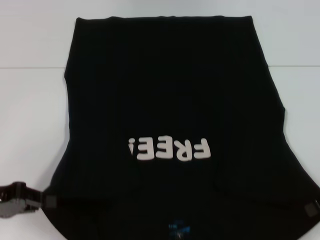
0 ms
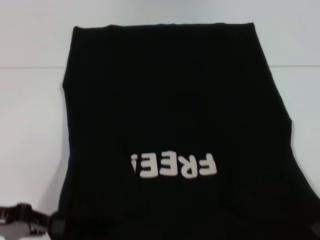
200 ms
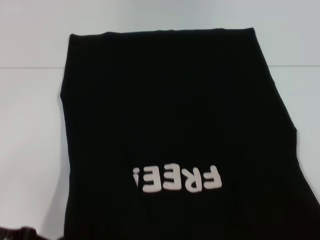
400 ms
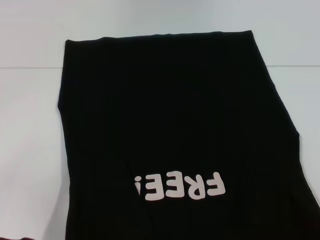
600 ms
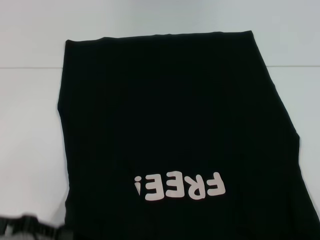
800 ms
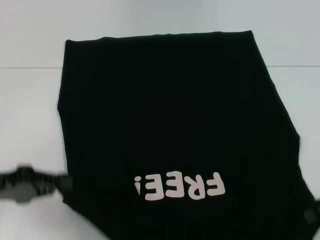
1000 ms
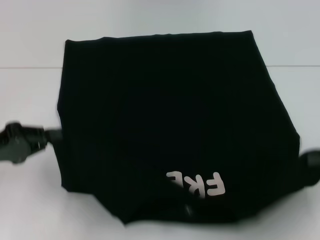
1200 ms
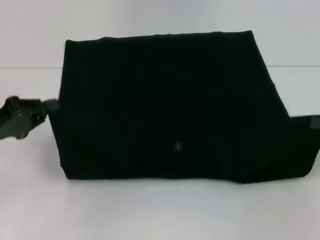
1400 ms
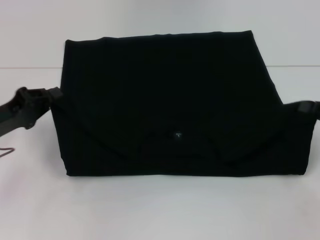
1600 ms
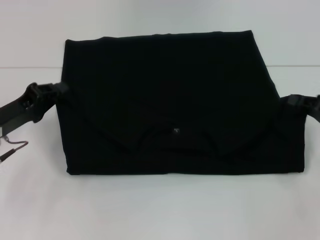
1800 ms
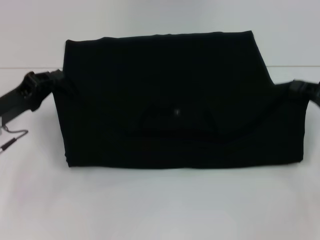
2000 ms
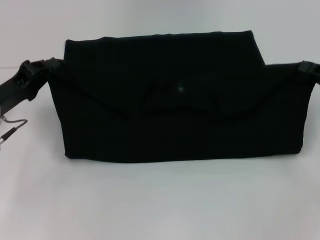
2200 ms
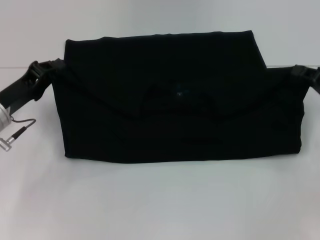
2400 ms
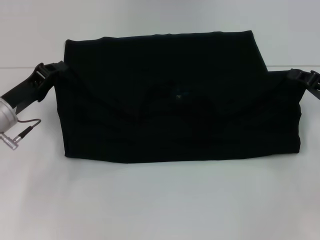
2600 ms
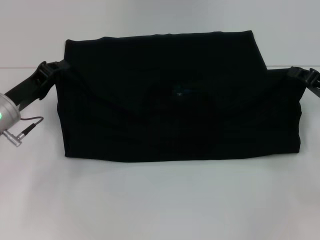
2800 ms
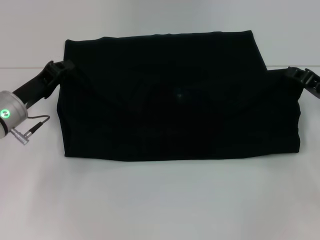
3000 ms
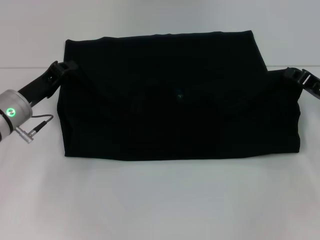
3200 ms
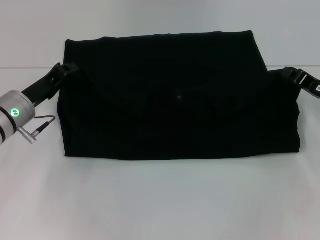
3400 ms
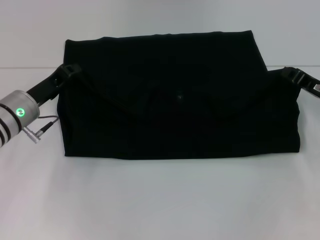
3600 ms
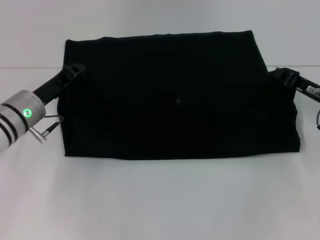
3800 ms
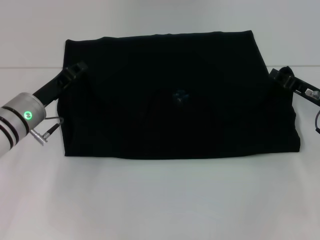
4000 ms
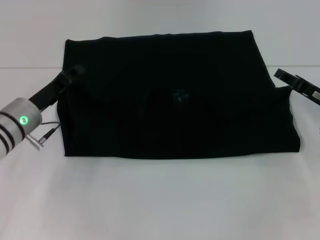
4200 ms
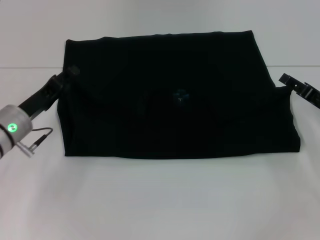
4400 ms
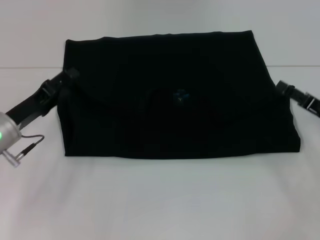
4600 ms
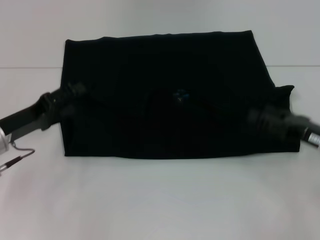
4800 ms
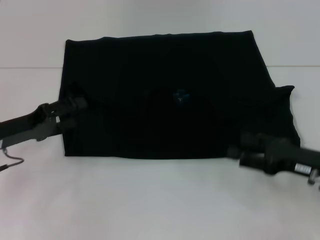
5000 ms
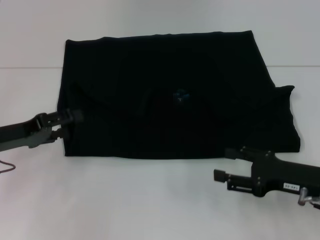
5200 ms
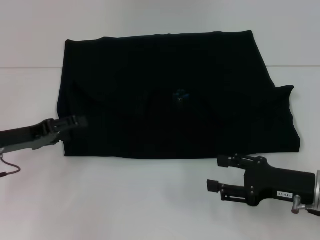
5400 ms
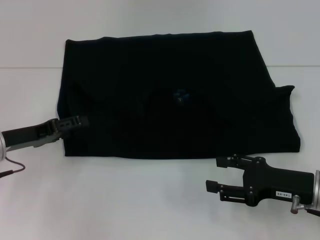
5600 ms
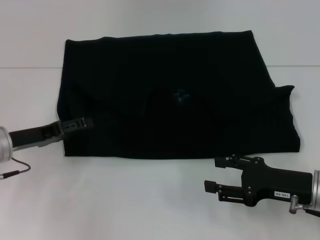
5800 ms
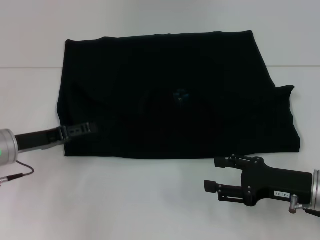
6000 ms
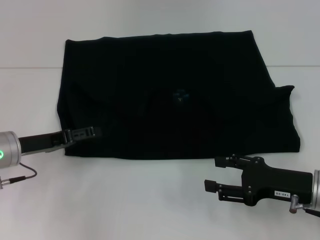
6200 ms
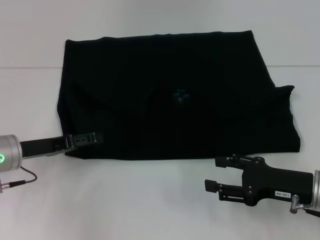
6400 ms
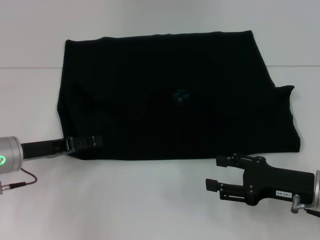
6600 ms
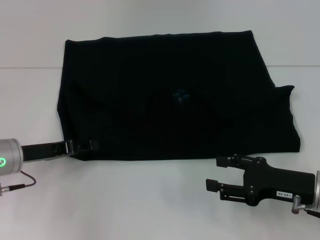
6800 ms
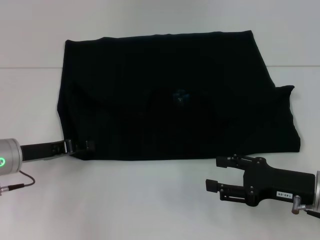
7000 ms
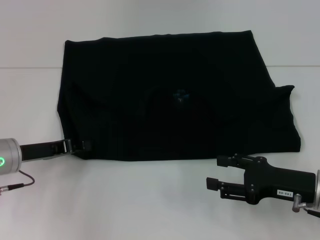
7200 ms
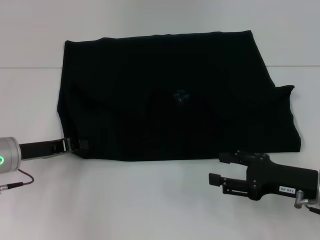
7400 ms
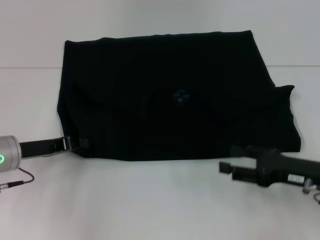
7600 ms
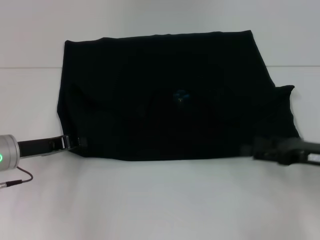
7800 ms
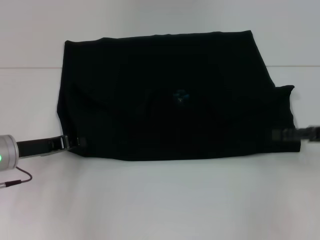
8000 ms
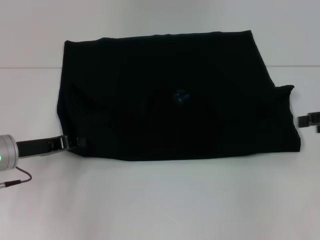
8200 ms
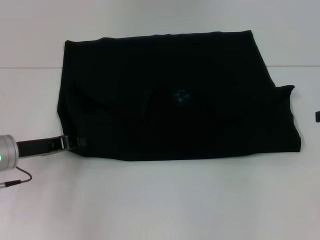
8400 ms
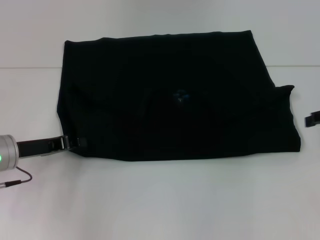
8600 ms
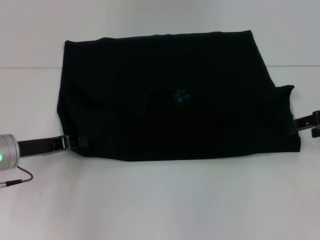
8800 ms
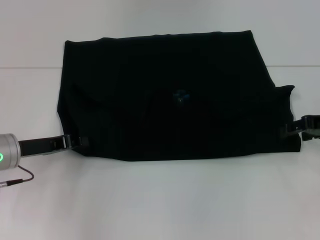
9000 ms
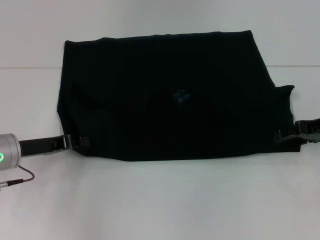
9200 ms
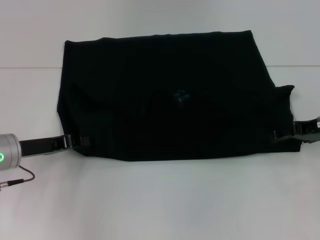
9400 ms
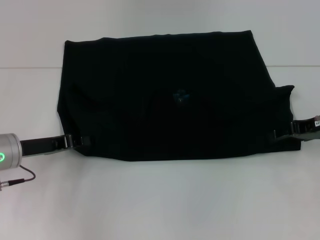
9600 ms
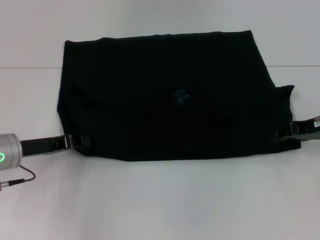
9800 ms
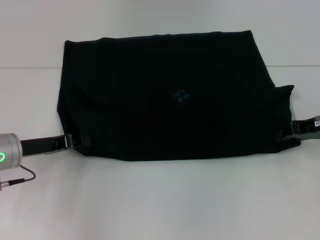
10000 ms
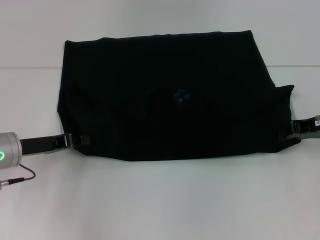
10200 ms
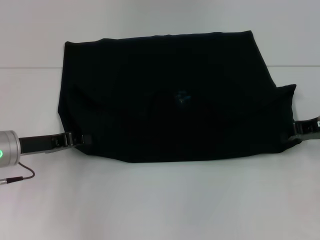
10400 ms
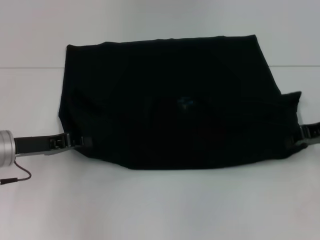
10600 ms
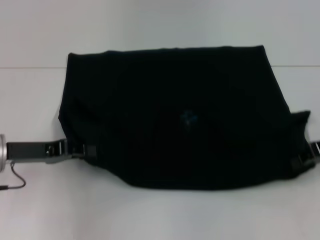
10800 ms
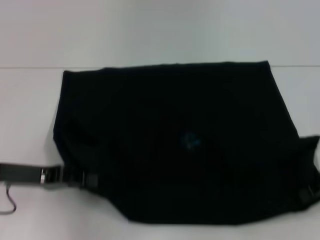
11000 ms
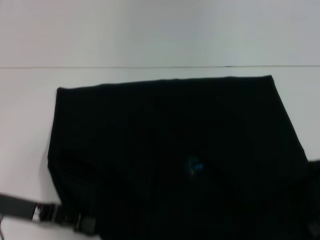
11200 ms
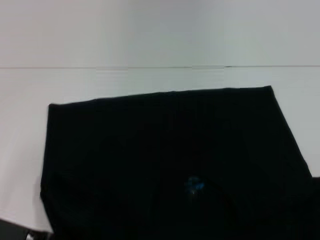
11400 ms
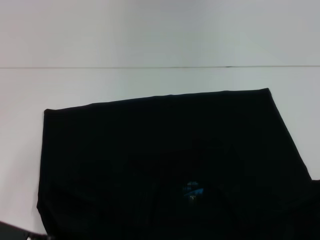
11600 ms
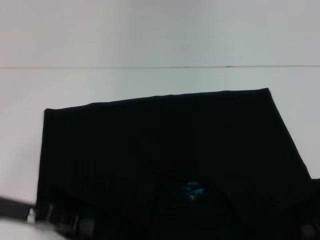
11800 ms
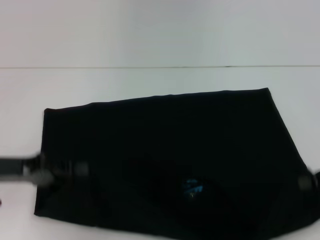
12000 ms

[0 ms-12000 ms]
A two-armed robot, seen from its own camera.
Step, 0 ms to 4200 ms: Fold the clothes with your left hand.
Step, 0 ms to 4200 ms: Fold the clothes with your right hand.
Step, 4400 ms to 11600 ms: Pull the clothes with your left hand.
Step, 4400 ms to 11600 ms: Pull the clothes with your right hand.
0 ms to 1600 ms: The right gripper shifts by about 5 cm, while the left gripper shifts by about 5 cm.
1600 ms to 3000 ms: The left gripper heads forward, covering about 5 cm; the right gripper travels forward and to the left by some 5 cm.
3000 ms to 4400 ms: The right gripper opens up; the left gripper opens.
4400 ms to 6000 ms: The right gripper heads backward and to the left, covering about 10 cm, while the left gripper opens.
6000 ms to 7600 ms: The left gripper closes.
7600 ms to 9000 ms: The right gripper goes about 15 cm forward and upward.
9000 ms to 10400 ms: The right gripper closes its fingers.
10400 ms to 12000 ms: The left gripper moves backward, approximately 5 cm. The right gripper goes some 10 cm backward.

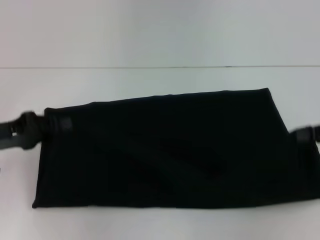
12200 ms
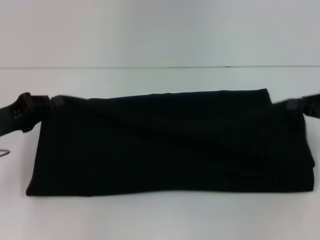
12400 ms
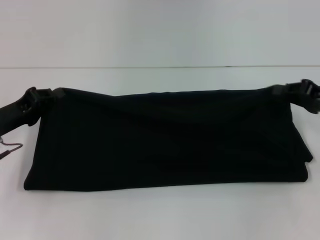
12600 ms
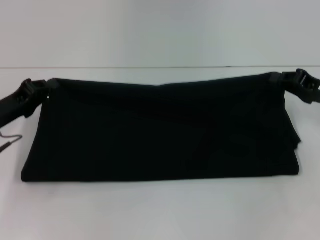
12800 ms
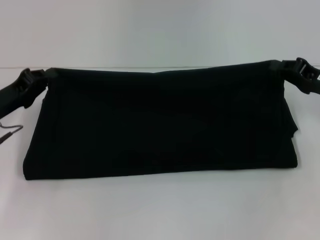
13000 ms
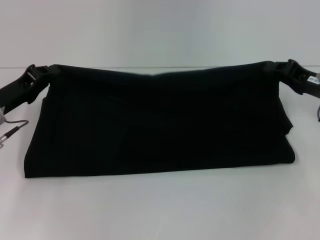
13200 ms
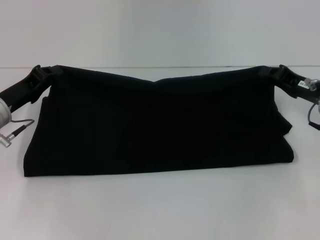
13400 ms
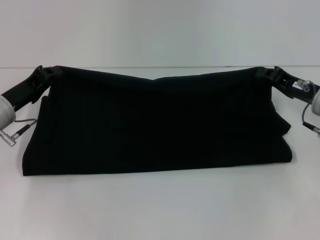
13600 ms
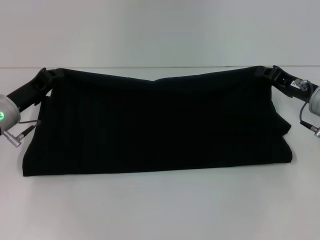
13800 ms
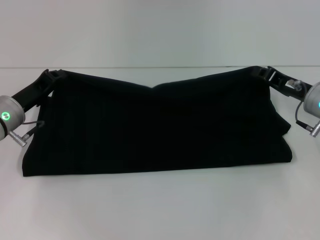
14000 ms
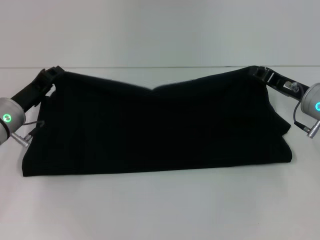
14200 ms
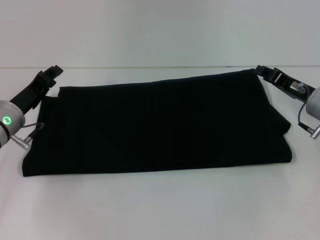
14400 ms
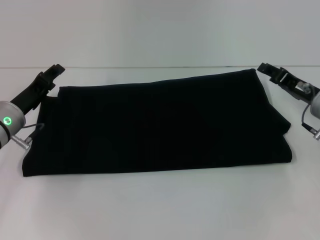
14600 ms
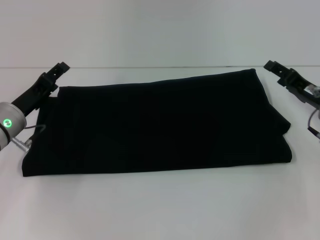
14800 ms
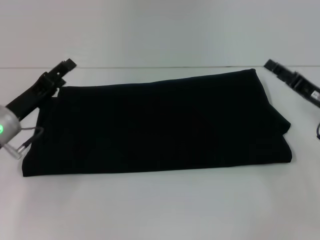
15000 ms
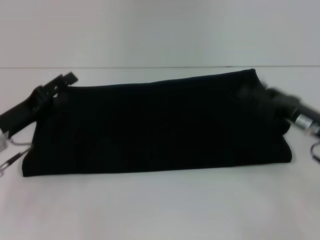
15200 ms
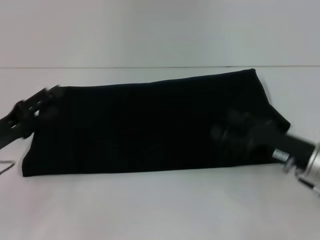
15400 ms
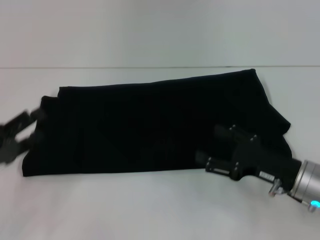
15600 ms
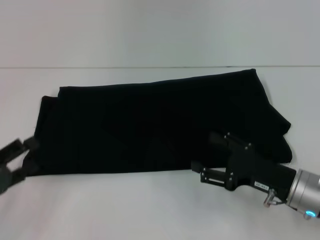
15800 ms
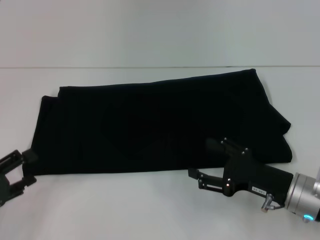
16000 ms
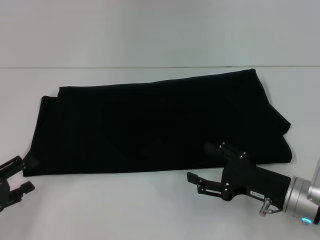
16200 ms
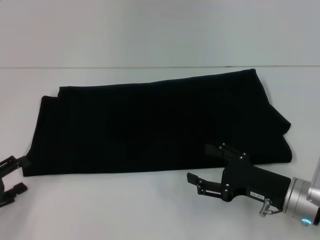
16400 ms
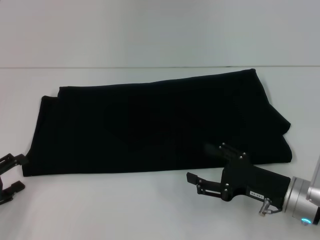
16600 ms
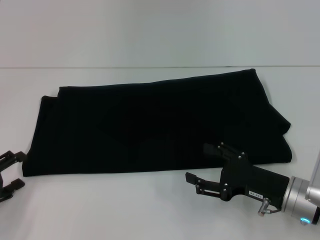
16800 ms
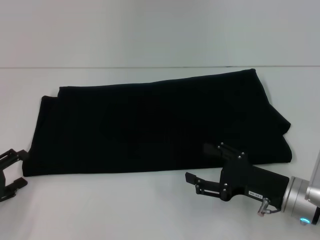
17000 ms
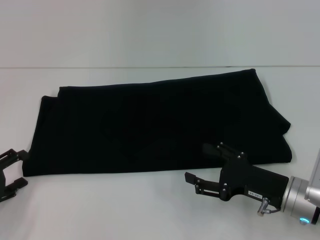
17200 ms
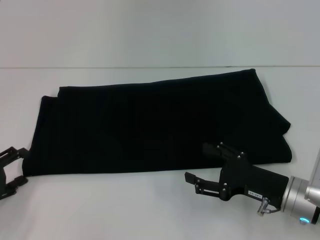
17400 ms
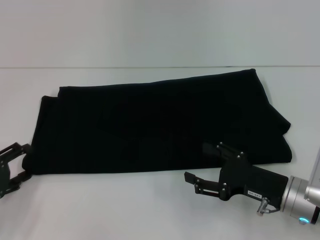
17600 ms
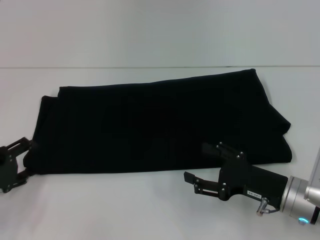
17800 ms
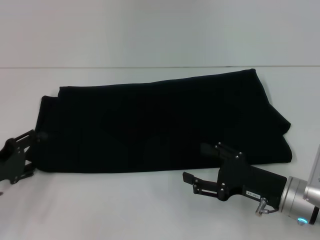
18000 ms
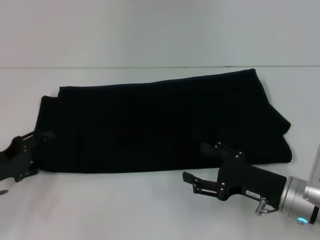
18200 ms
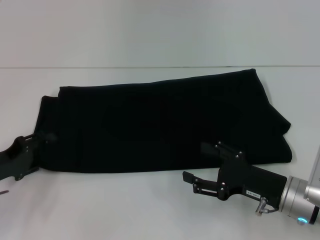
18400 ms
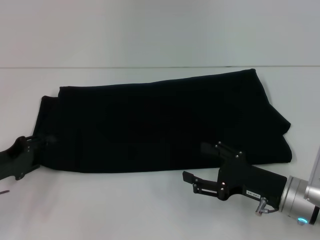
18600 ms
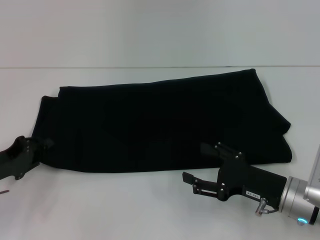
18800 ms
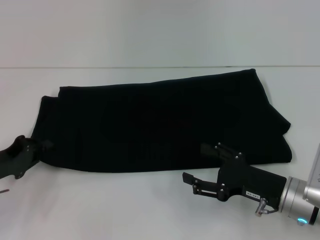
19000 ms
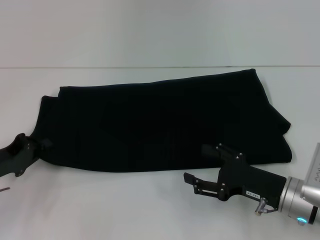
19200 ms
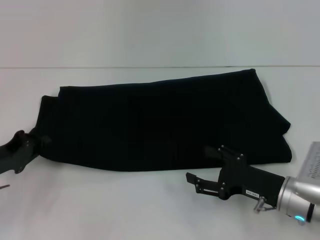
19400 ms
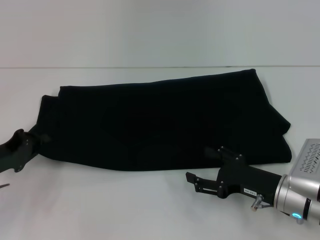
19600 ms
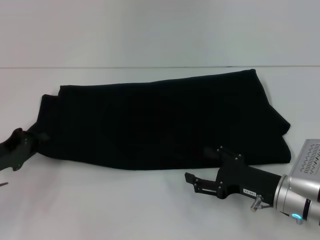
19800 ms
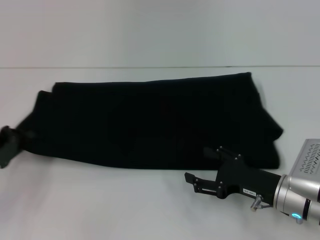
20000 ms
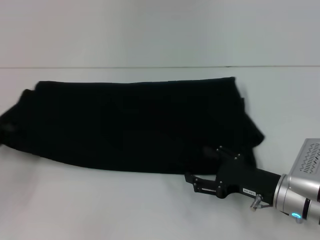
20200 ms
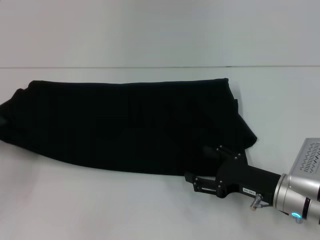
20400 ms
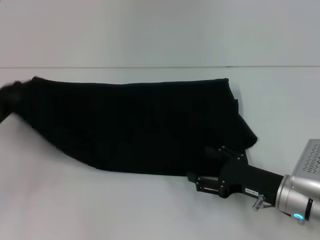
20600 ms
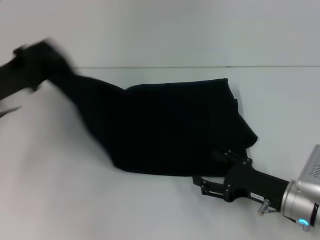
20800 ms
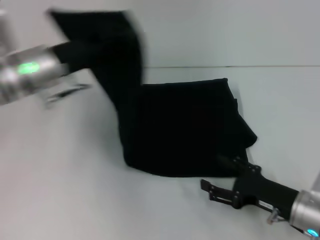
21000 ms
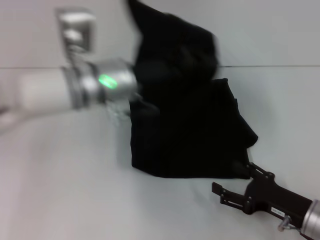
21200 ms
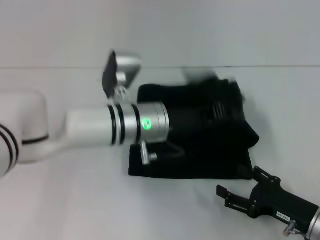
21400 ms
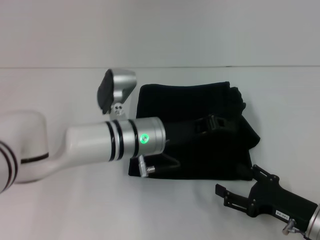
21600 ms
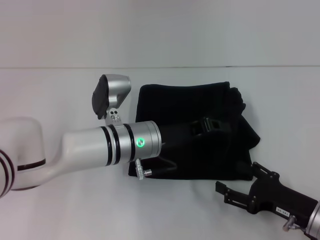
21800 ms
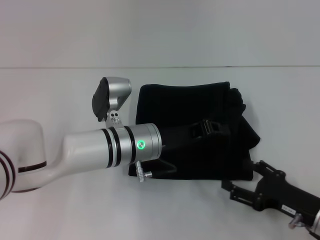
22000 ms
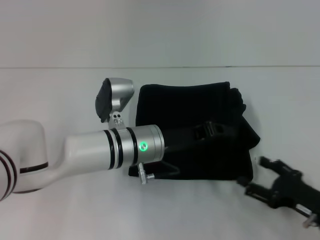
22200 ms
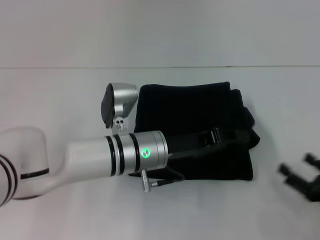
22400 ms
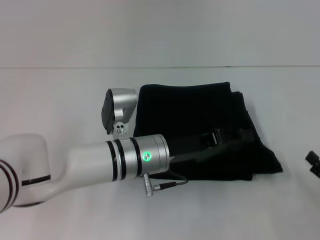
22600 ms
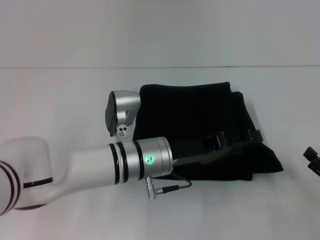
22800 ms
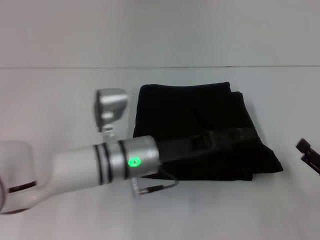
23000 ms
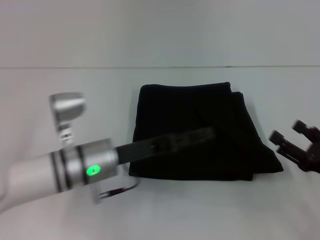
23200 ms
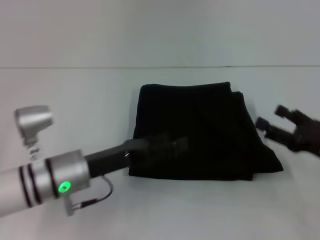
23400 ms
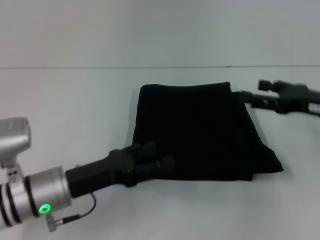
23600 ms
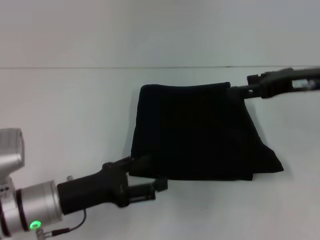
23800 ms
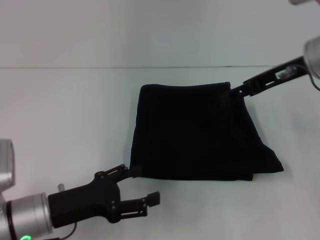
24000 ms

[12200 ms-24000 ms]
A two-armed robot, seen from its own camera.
Step, 12200 ms to 14600 ms: Fold the clothes with your right hand.
Step, 12200 ms to 22800 ms: Fold the clothes with your left hand.
12200 ms to 13600 ms: The right gripper goes roughly 15 cm to the left, downward and forward. The left gripper moves forward, approximately 5 cm.
13600 ms to 15200 ms: The left gripper opens its fingers. The right gripper moves backward, approximately 5 cm, and opens its fingers.
15200 ms to 16600 ms: The right gripper is displaced backward, to the left and downward by roughly 10 cm; the left gripper moves backward and to the left, approximately 15 cm.
16600 ms to 18200 ms: The left gripper goes roughly 5 cm forward.
18200 ms to 19600 ms: The left gripper closes up.
19600 ms to 21000 ms: The left gripper travels to the right, upward and forward by roughly 20 cm.
21000 ms to 22600 ms: The left gripper shifts some 20 cm to the right and downward. Meanwhile the right gripper shifts about 10 cm to the right and backward.
22600 ms to 24000 ms: The right gripper shifts about 30 cm upward, forward and to the left. The left gripper goes approximately 20 cm to the left and backward, and opens.
